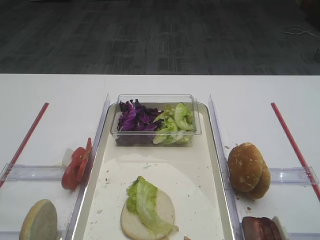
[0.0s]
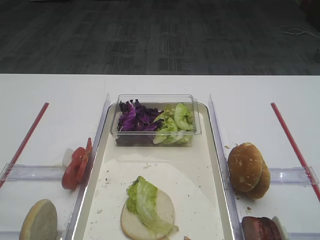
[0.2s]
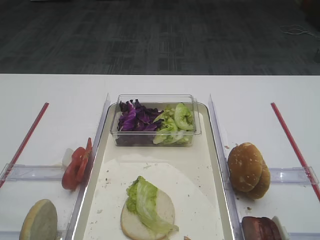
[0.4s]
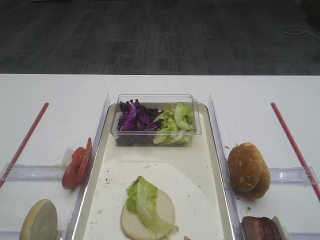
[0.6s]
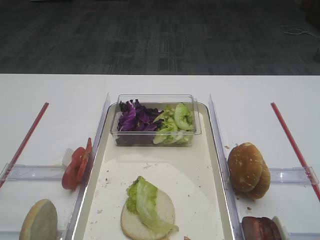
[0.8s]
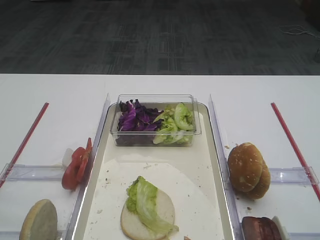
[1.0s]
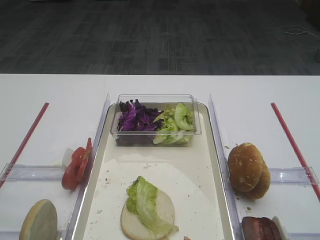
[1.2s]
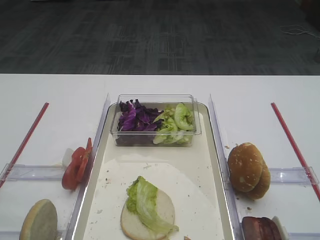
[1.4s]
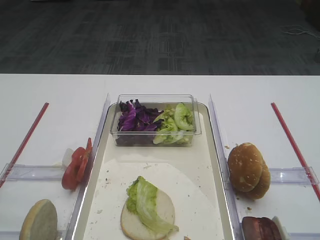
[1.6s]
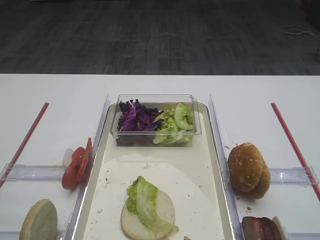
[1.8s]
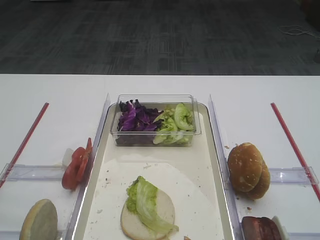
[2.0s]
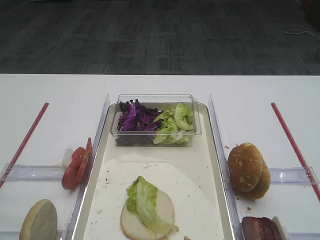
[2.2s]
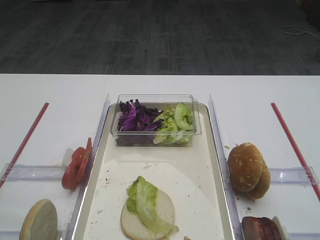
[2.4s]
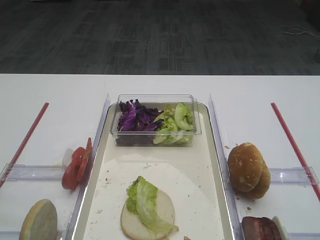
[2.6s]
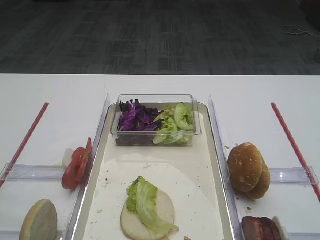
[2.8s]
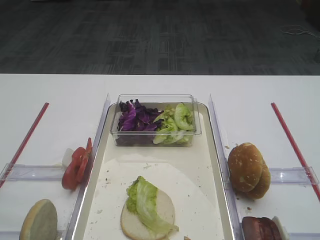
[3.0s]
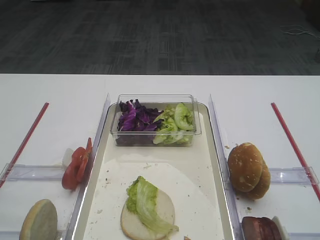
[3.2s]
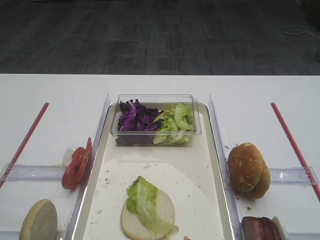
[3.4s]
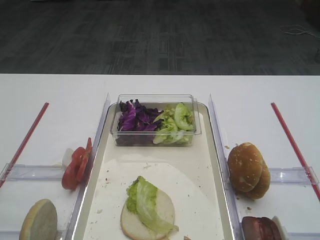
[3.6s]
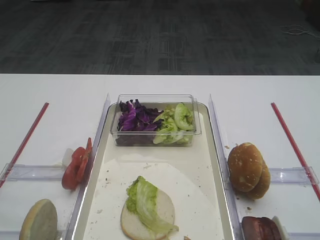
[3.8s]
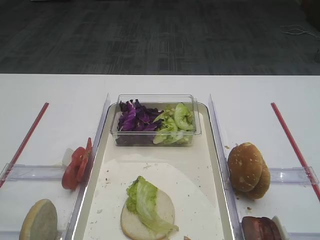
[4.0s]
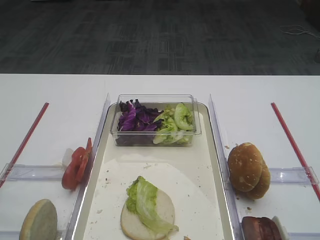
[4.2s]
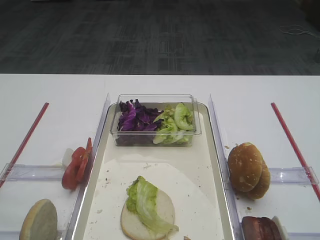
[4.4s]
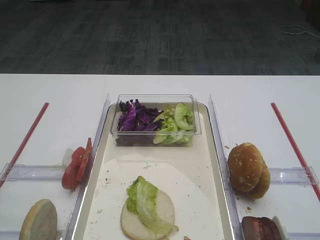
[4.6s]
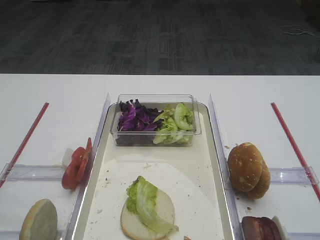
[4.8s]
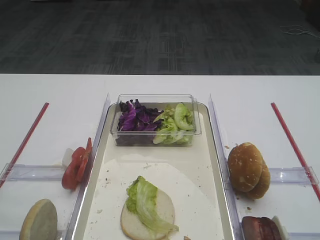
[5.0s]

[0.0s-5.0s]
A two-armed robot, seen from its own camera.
3.4s to 5.0s: Both grippers stay put.

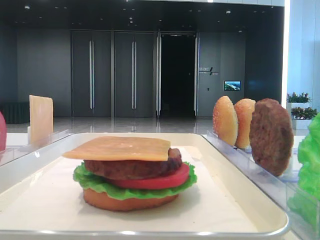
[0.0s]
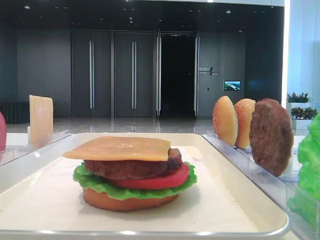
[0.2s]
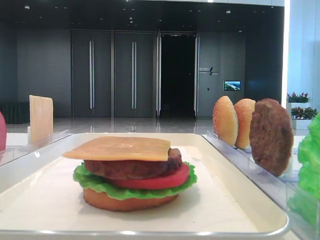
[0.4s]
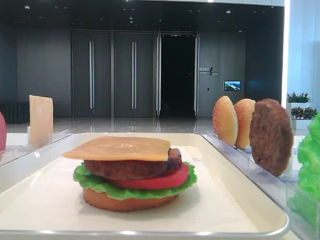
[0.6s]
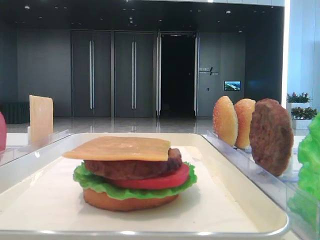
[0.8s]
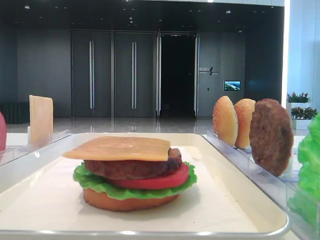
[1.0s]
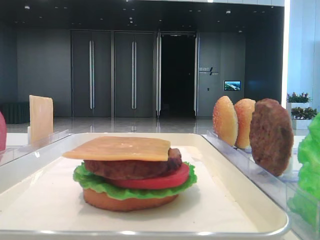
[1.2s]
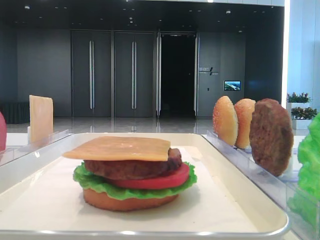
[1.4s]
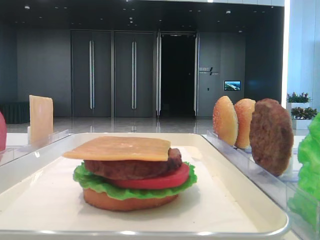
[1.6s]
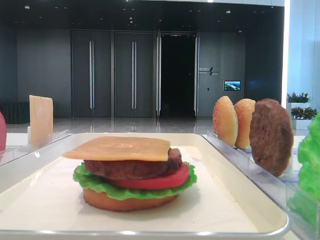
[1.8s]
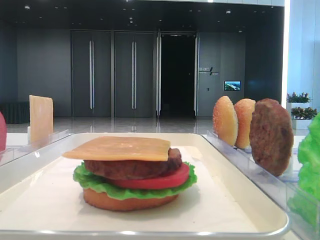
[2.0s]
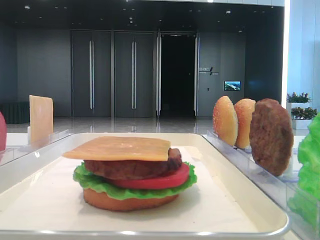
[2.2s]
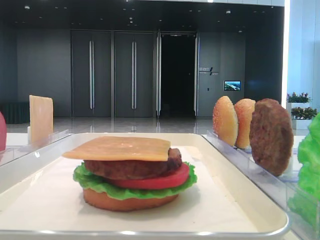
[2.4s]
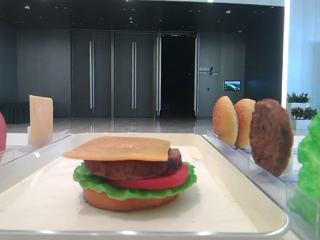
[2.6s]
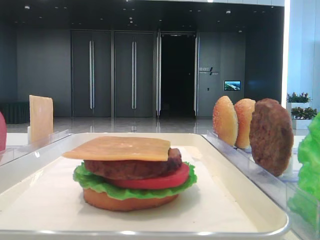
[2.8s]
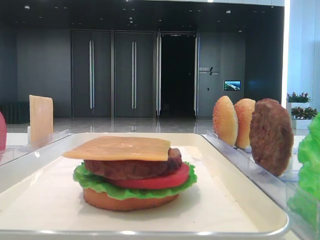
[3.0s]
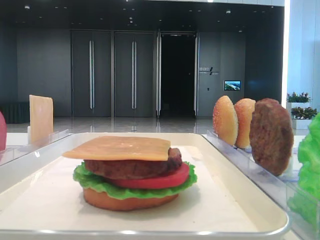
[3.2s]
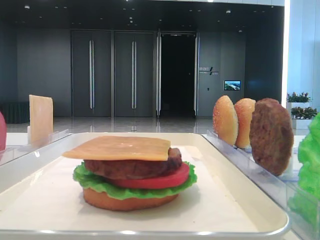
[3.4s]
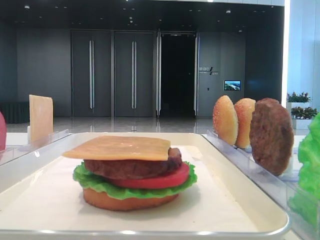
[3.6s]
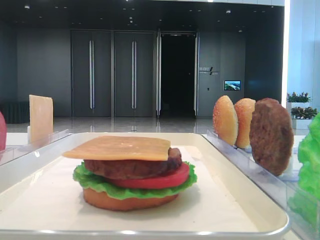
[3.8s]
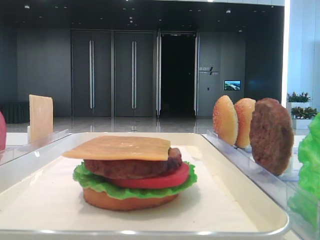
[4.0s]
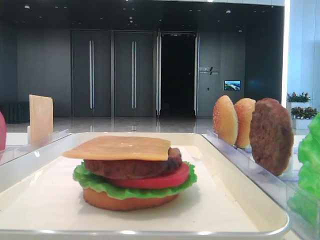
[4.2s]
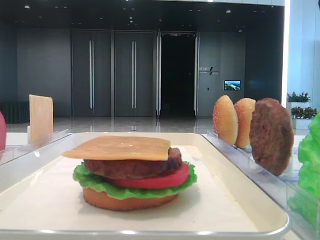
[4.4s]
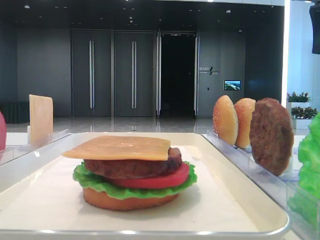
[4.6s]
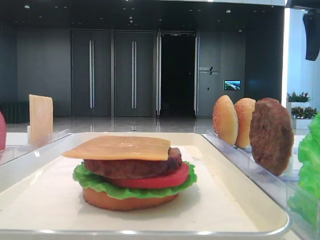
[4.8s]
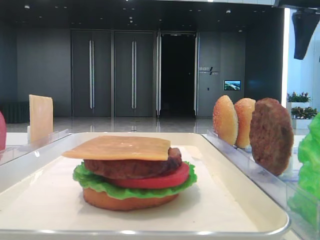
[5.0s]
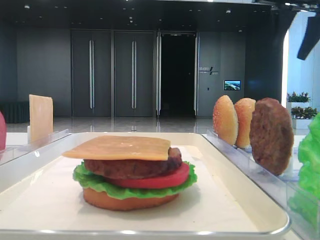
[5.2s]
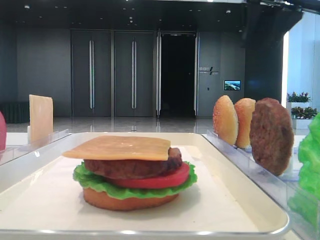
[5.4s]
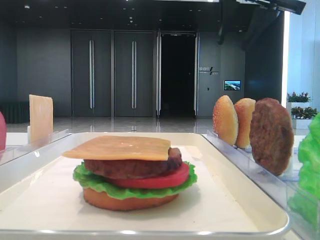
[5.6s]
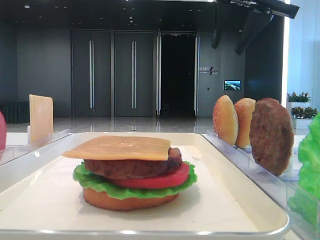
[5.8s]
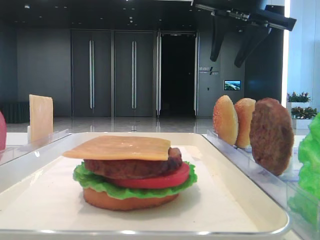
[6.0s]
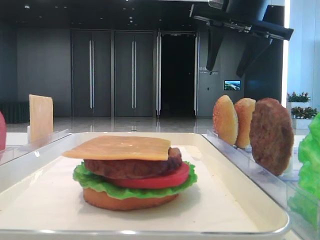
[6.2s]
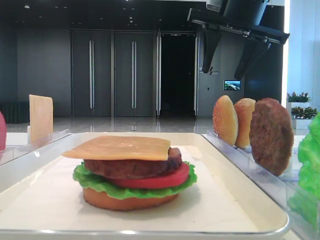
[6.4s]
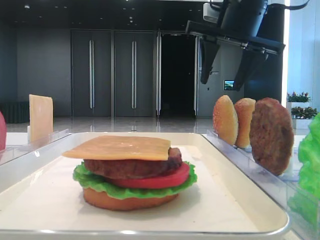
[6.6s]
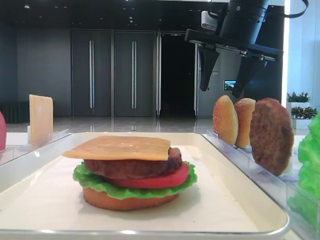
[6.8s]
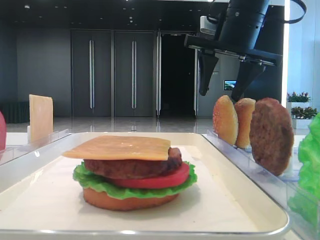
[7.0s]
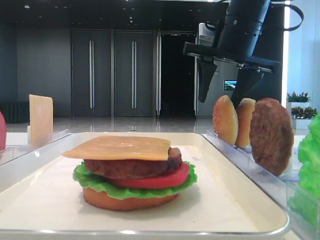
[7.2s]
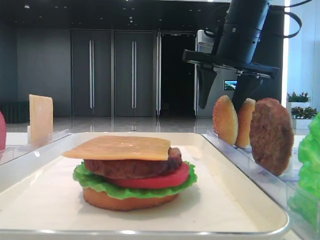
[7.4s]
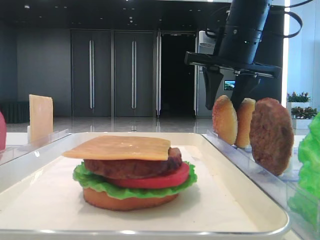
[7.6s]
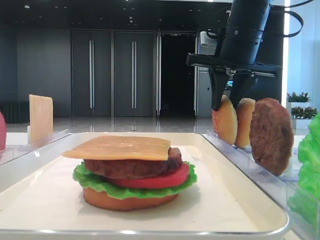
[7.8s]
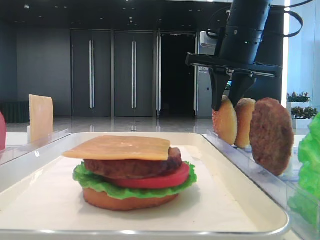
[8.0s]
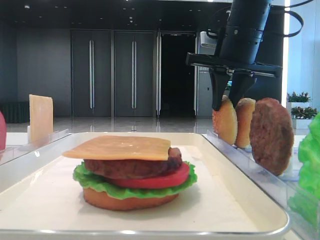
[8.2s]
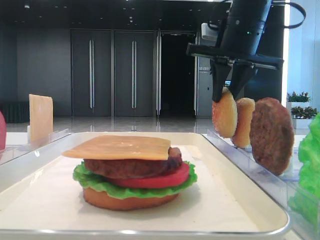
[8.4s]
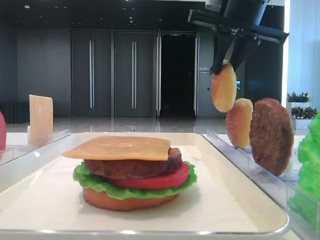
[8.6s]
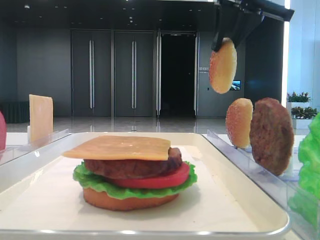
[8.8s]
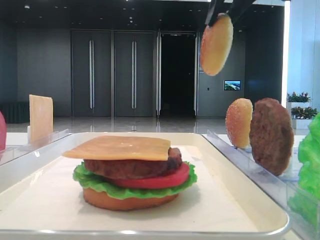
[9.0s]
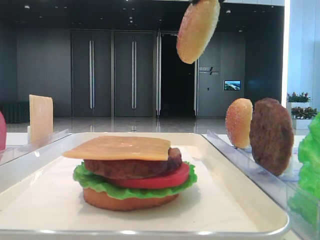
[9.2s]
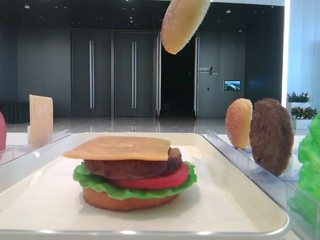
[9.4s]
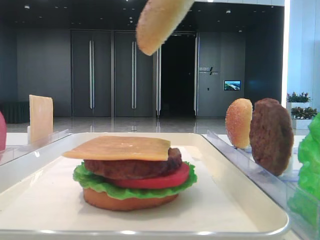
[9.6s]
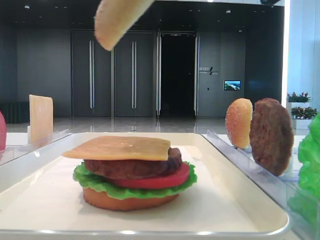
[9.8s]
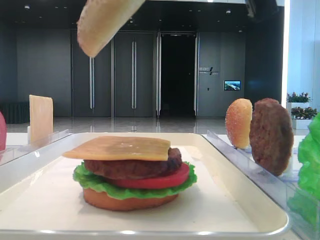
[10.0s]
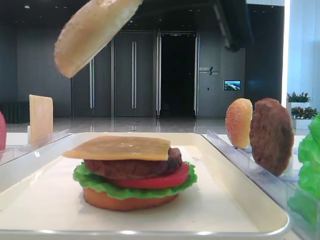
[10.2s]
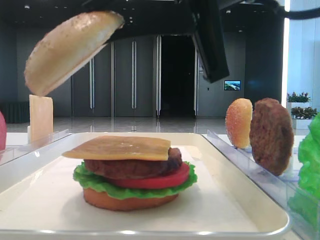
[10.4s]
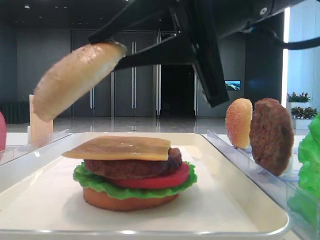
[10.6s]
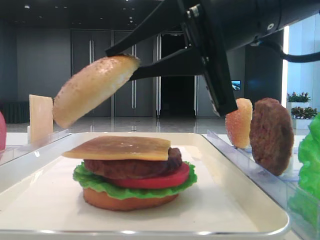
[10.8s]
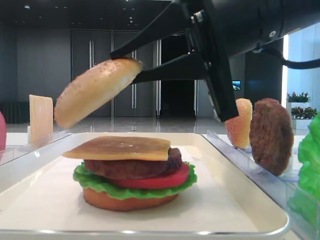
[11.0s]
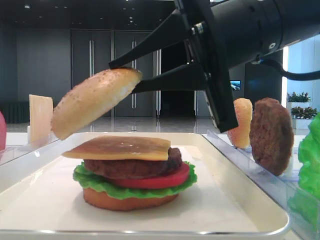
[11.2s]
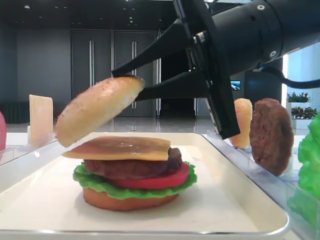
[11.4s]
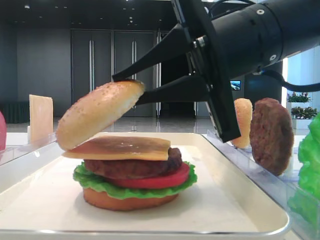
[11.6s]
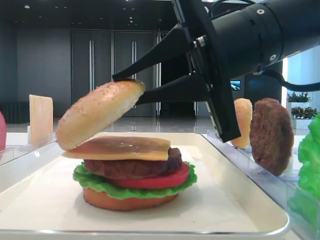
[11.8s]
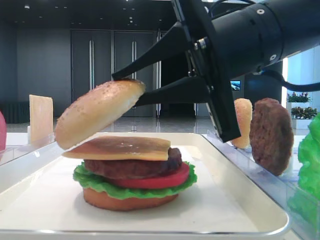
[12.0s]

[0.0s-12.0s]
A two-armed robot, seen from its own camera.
Step, 0.0s to 8.2s: Pick up the top bread slice with the right hand.
4.4s to 6.0s: The right gripper travels to the left by approximately 15 cm.
6.0s to 7.6s: The right gripper shifts about 5 cm downward, and opens, then closes again.
7.6s to 9.0s: The right gripper is displaced upward and backward by some 15 cm, and closes.
9.0s to 10.4s: The right gripper heads downward, backward and to the left, covering some 15 cm.
10.4s to 12.0s: The right gripper moves approximately 5 cm.

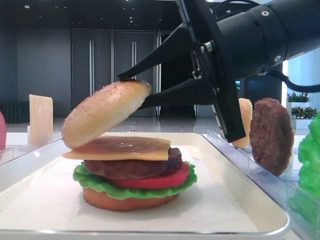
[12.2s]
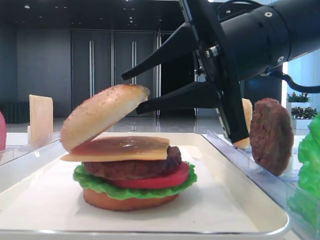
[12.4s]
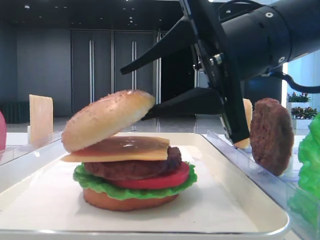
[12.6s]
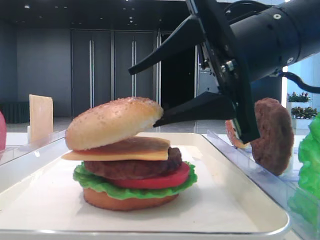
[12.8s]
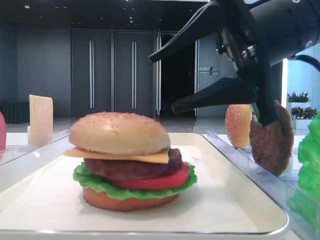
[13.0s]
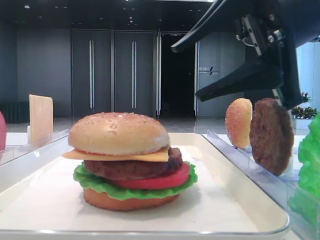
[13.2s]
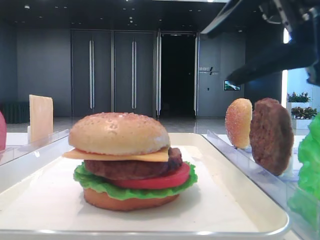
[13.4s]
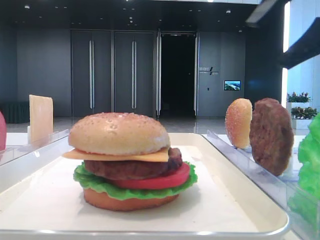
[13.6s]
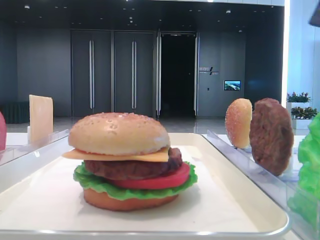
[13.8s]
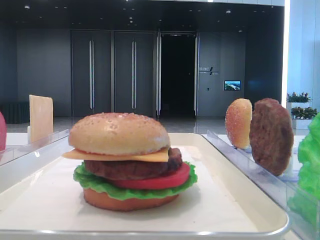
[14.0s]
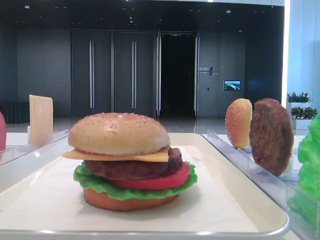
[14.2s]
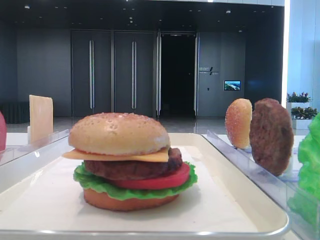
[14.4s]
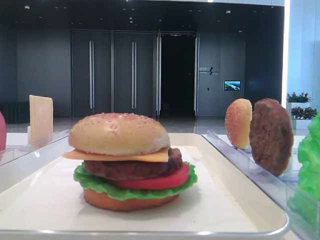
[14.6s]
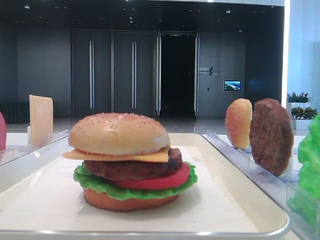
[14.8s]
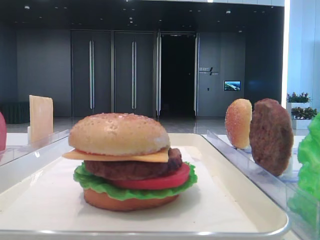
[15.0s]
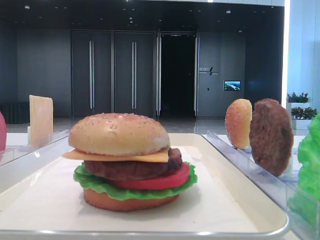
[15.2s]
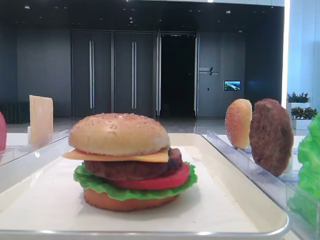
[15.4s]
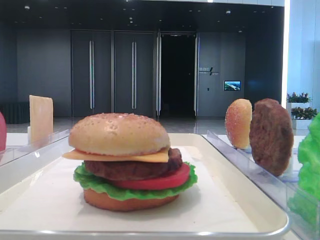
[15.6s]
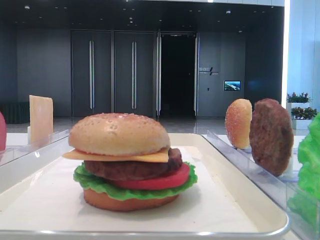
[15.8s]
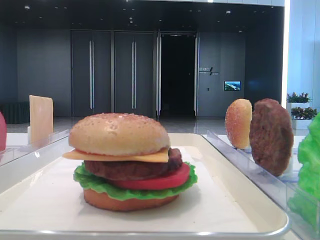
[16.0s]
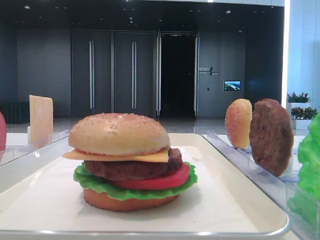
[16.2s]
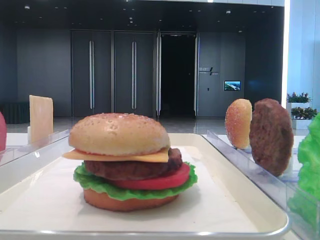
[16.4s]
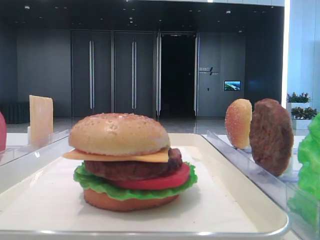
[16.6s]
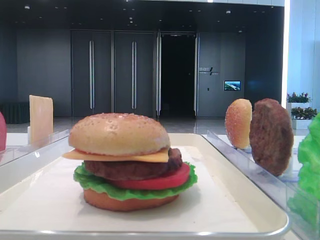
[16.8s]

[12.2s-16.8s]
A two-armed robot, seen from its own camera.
12.2s to 13.8s: The right gripper heads to the right and upward, covering about 20 cm, and opens.
13.8s to 15.2s: The right gripper moves backward, roughly 20 cm.
15.2s to 16.8s: Neither gripper changes place.
